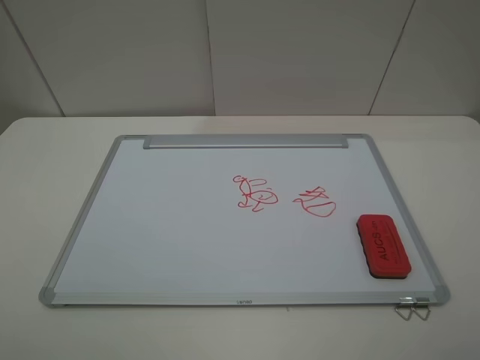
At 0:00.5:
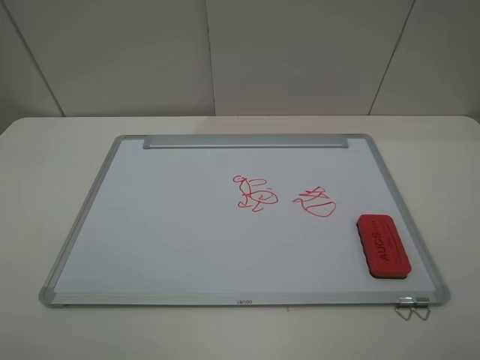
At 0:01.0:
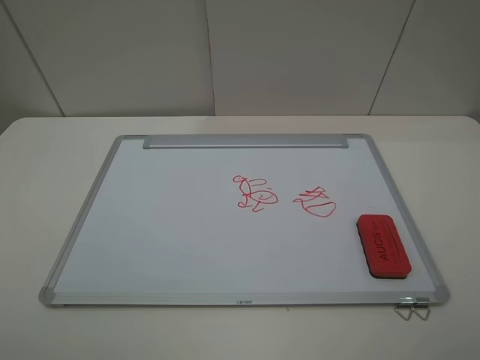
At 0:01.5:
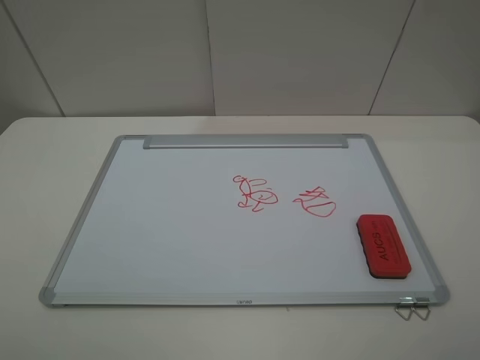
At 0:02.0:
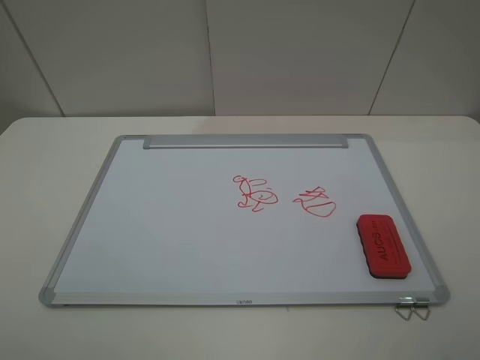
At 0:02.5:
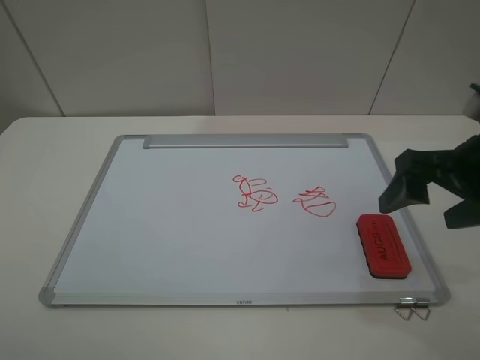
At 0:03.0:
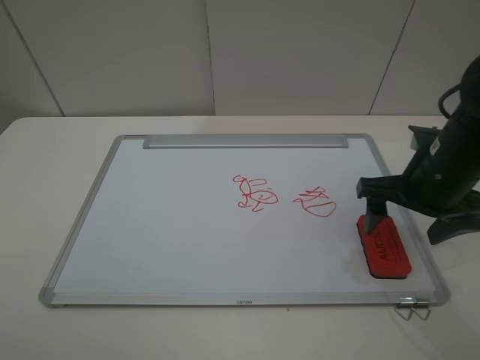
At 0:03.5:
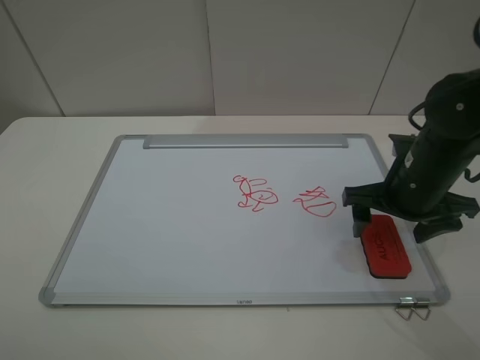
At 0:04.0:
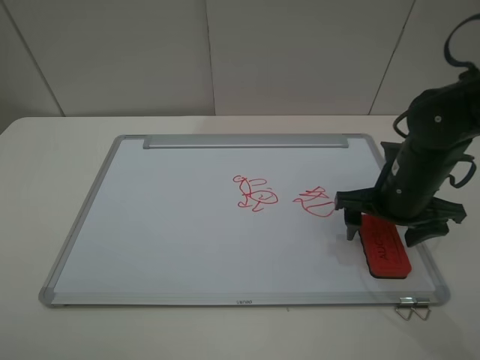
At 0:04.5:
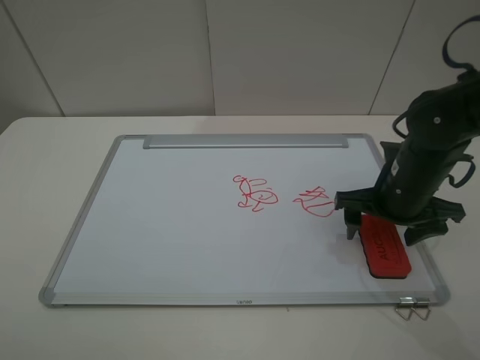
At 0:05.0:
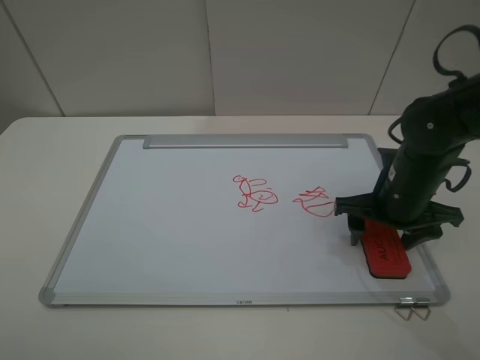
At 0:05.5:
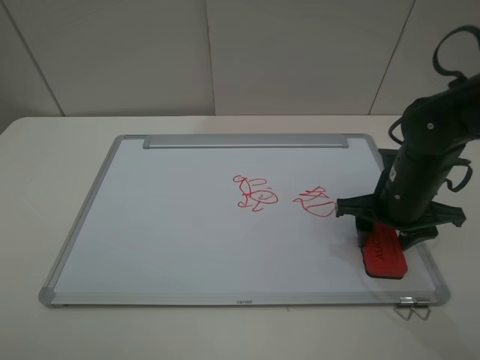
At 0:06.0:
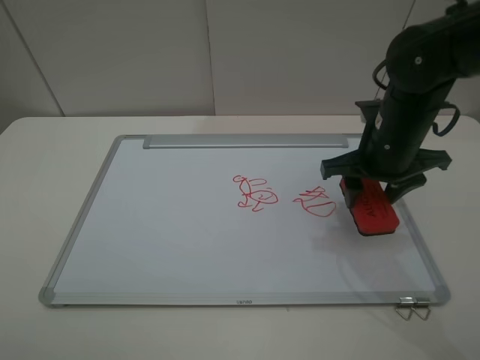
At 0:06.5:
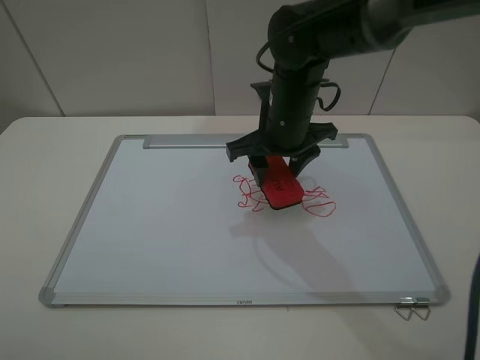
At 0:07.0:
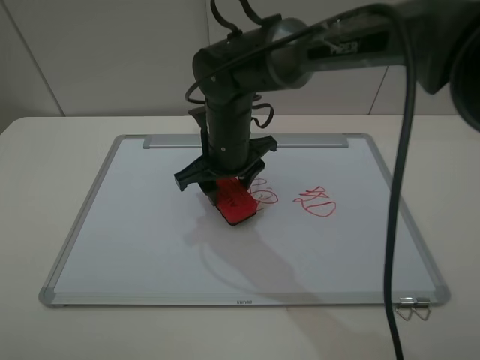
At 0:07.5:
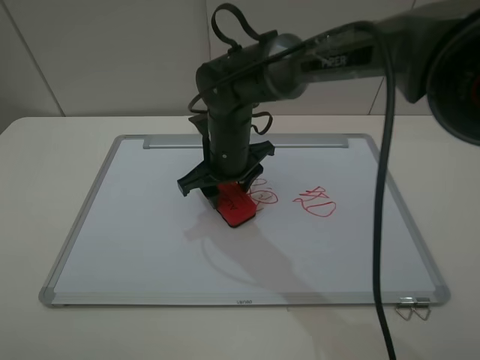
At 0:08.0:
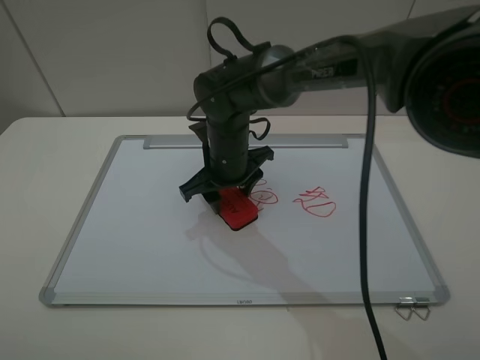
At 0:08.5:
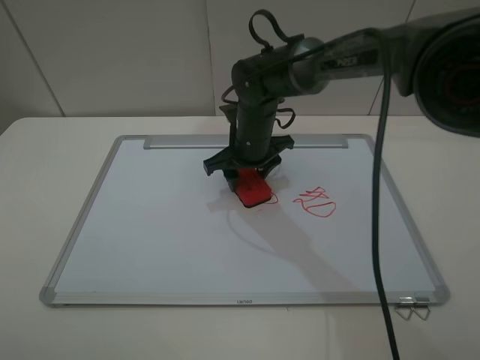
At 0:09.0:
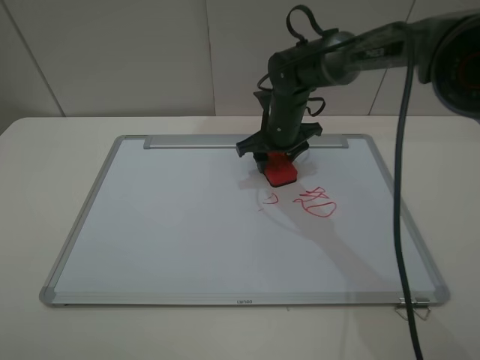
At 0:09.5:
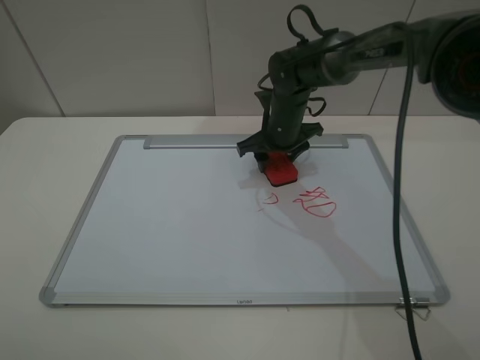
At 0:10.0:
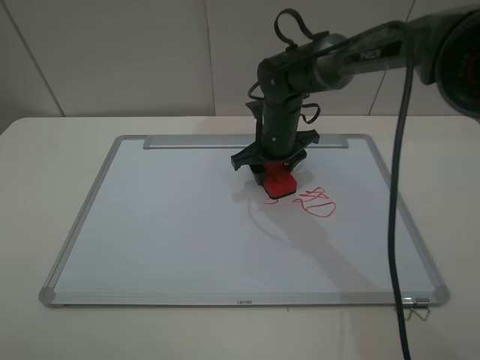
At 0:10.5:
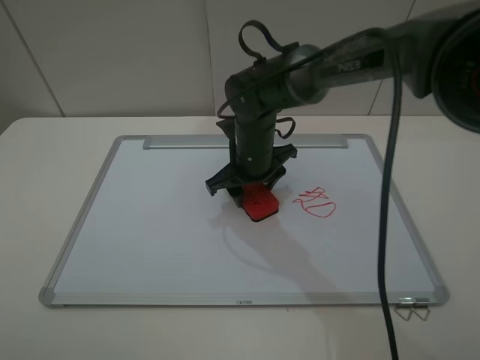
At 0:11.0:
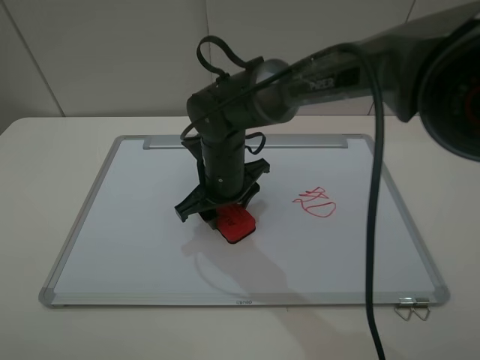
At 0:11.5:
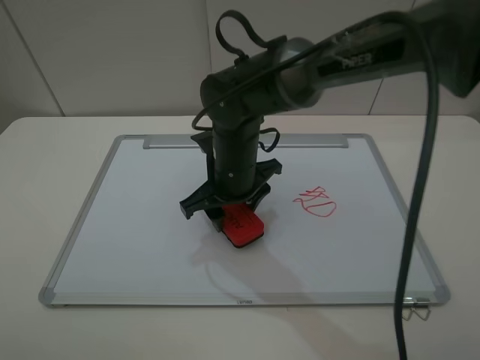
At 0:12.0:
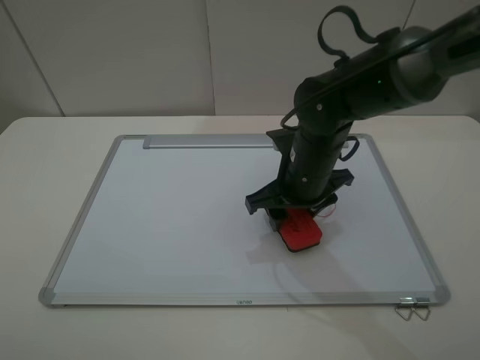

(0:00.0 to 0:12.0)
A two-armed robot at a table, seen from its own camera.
Step, 0:00.0 - 0:05.0: Grasp the eraser with the right gripper.
Step, 0:05.5 - 0:11.0: Grasp the eraser and wipe the blackboard with the right gripper.
0:02.0 - 0:04.0: The right gripper heads forward and downward, covering approximately 25 cm.
0:04.0 - 0:06.0: The right gripper changes place by approximately 5 cm, and closes.
0:06.0 - 0:08.0: The right gripper heads to the left, covering about 20 cm.
0:08.0 - 0:10.0: The right gripper goes roughly 10 cm to the right and forward.
0:10.0 - 0:12.0: The right gripper is displaced backward by some 10 cm, and goes to the left and returns, some 10 cm each way.

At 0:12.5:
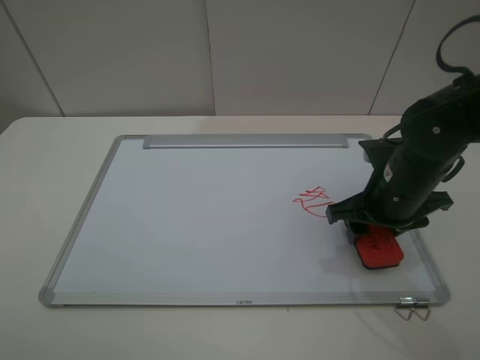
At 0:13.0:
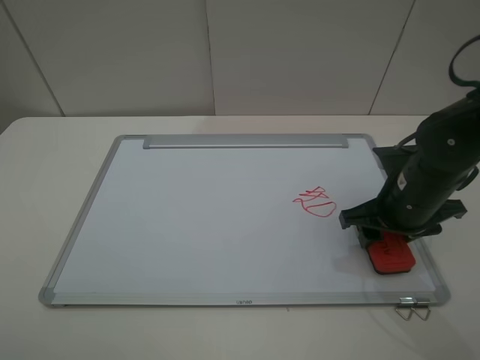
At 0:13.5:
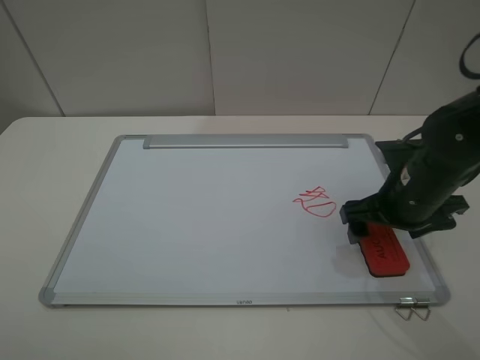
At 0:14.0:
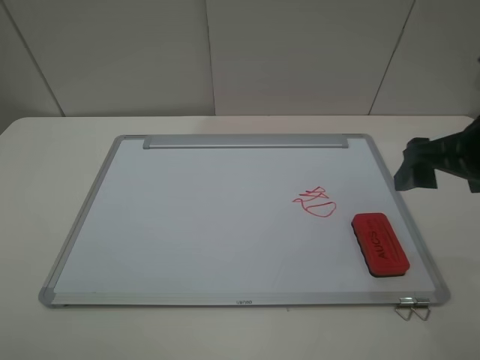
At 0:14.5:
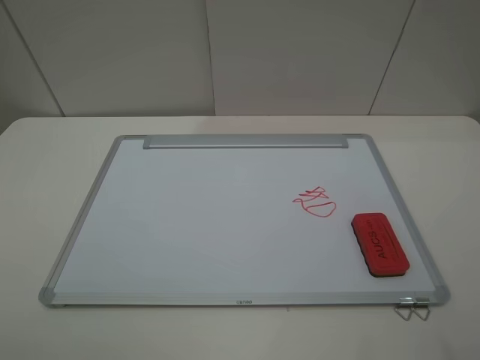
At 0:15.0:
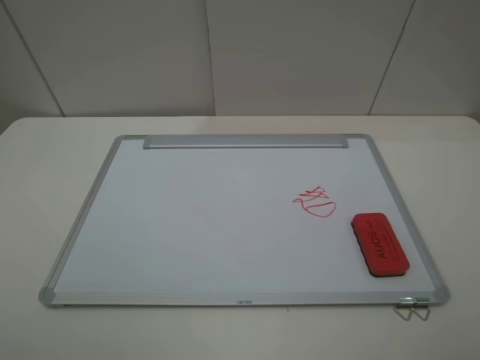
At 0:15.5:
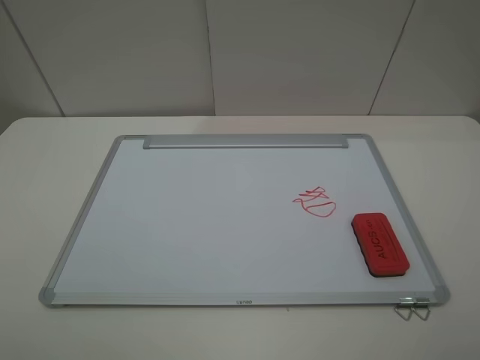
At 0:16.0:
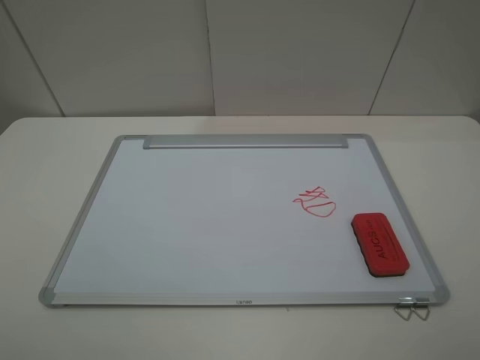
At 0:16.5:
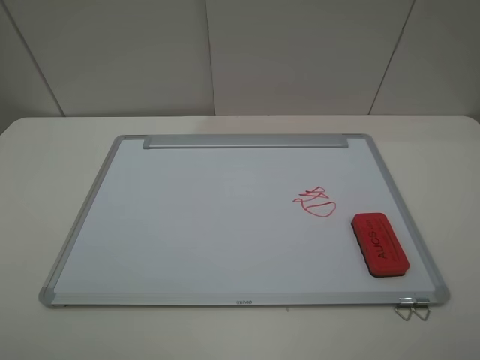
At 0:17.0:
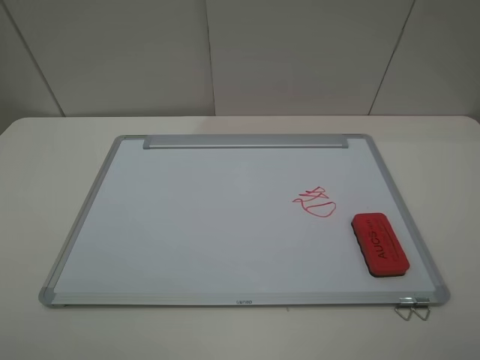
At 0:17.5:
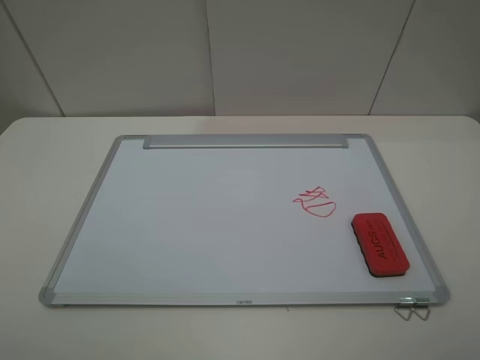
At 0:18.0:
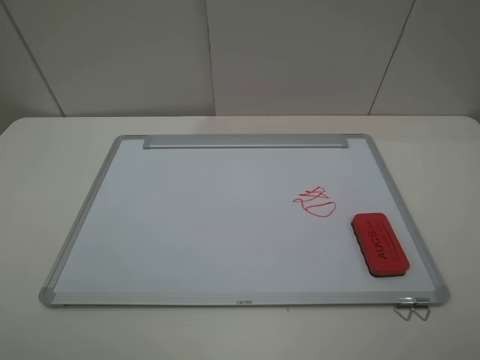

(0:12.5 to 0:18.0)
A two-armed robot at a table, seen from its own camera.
0:12.5 - 0:14.5: The right gripper moves upward, backward and to the right, roughly 30 cm, and opens its fingers.
